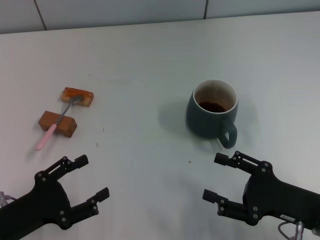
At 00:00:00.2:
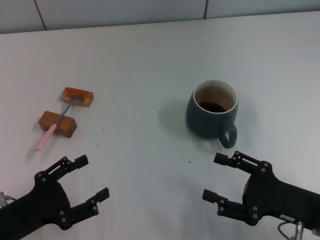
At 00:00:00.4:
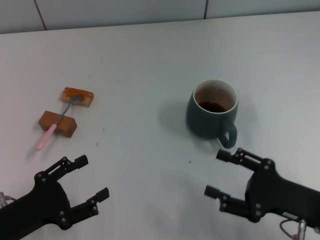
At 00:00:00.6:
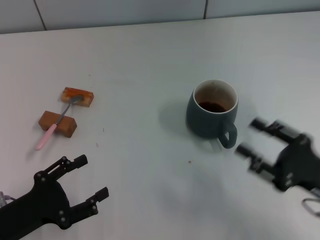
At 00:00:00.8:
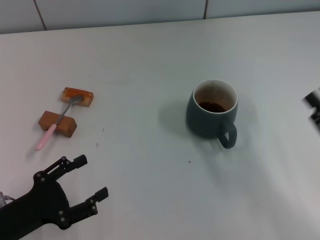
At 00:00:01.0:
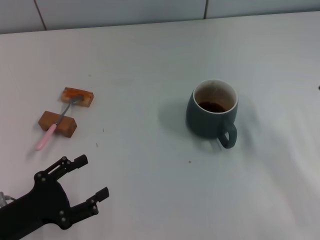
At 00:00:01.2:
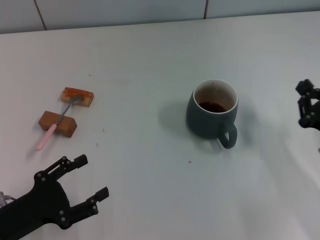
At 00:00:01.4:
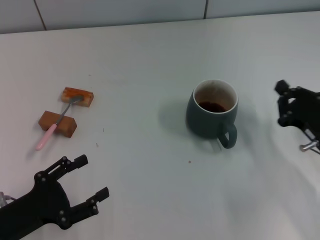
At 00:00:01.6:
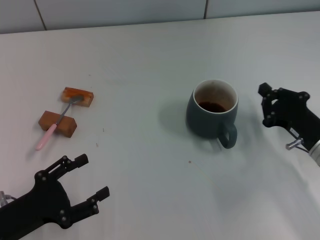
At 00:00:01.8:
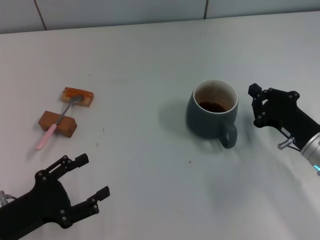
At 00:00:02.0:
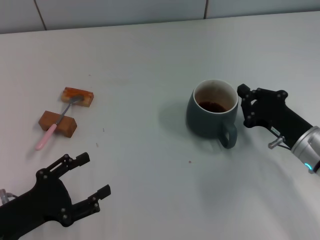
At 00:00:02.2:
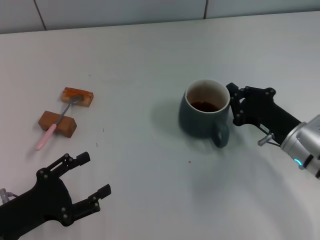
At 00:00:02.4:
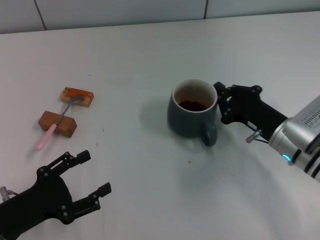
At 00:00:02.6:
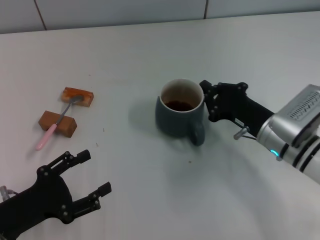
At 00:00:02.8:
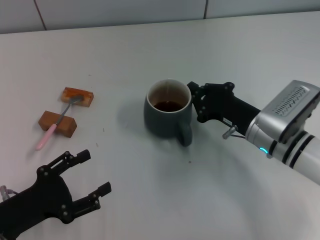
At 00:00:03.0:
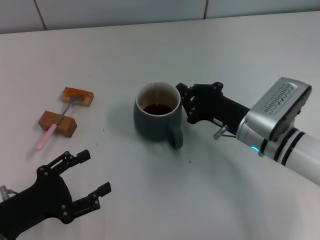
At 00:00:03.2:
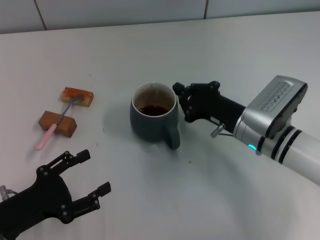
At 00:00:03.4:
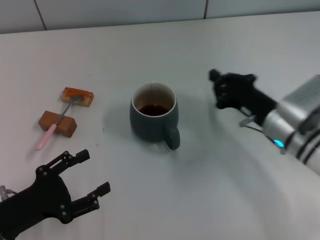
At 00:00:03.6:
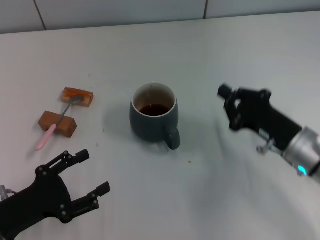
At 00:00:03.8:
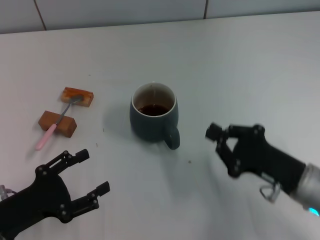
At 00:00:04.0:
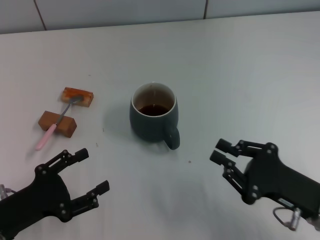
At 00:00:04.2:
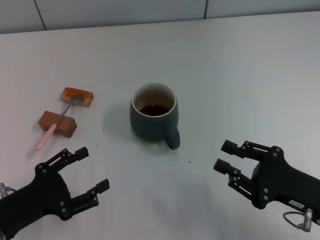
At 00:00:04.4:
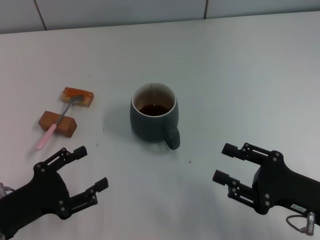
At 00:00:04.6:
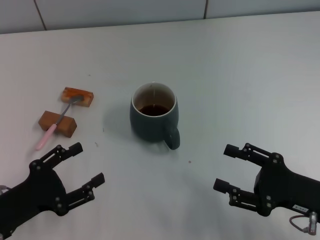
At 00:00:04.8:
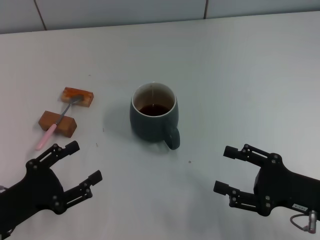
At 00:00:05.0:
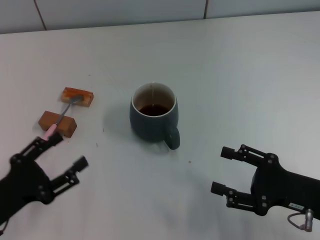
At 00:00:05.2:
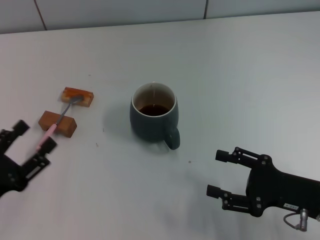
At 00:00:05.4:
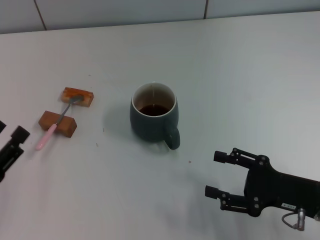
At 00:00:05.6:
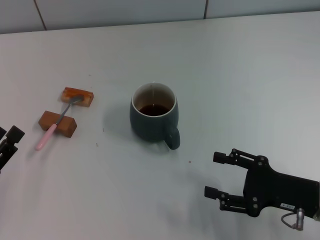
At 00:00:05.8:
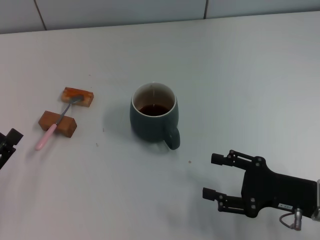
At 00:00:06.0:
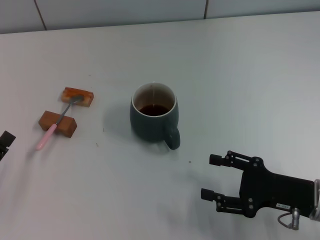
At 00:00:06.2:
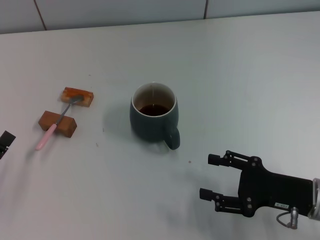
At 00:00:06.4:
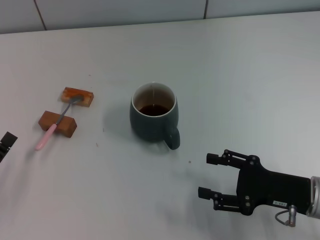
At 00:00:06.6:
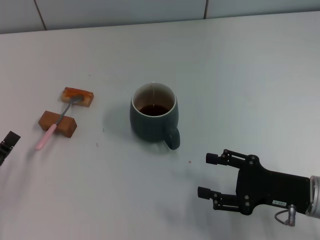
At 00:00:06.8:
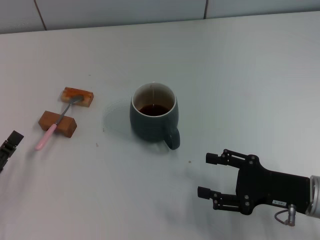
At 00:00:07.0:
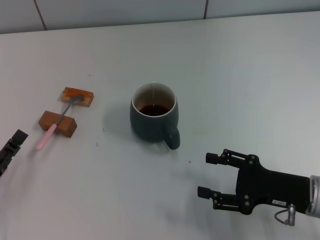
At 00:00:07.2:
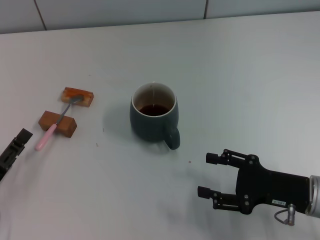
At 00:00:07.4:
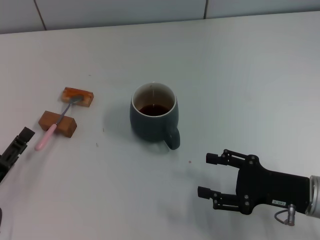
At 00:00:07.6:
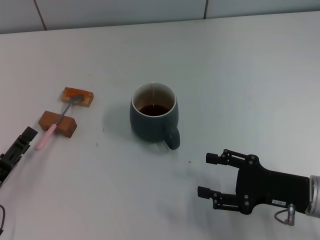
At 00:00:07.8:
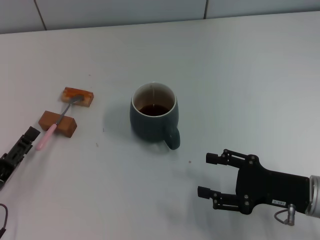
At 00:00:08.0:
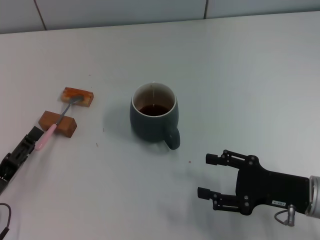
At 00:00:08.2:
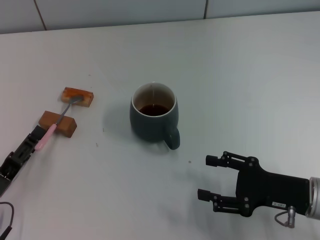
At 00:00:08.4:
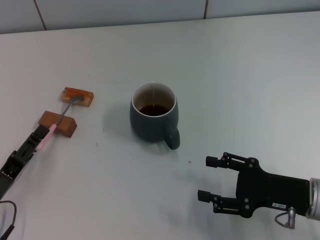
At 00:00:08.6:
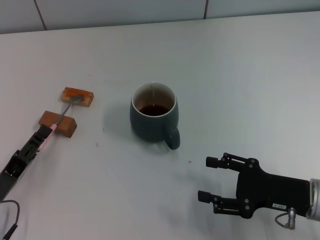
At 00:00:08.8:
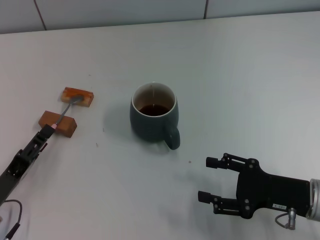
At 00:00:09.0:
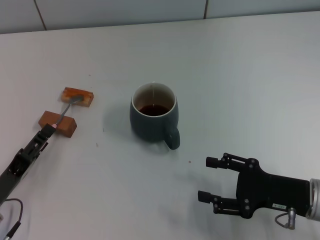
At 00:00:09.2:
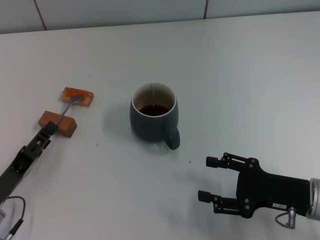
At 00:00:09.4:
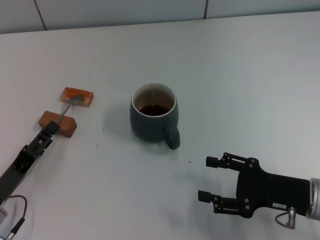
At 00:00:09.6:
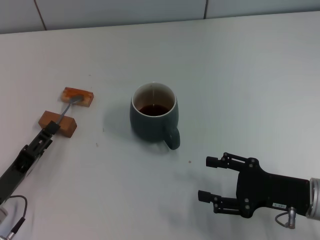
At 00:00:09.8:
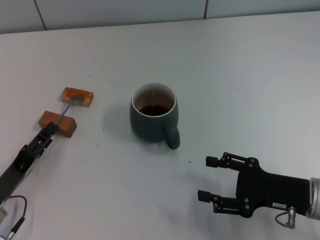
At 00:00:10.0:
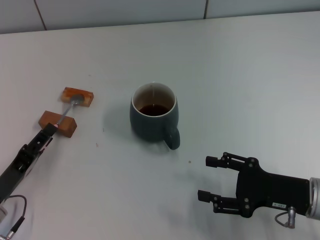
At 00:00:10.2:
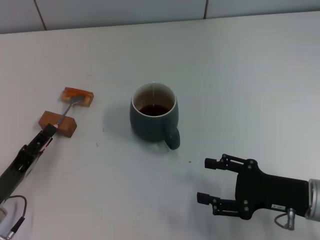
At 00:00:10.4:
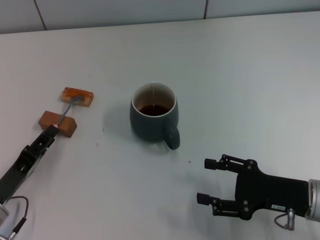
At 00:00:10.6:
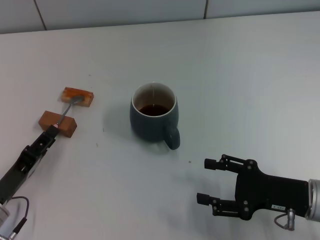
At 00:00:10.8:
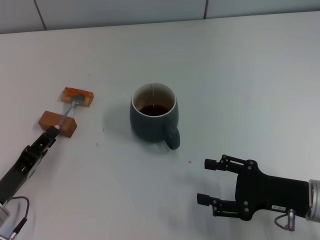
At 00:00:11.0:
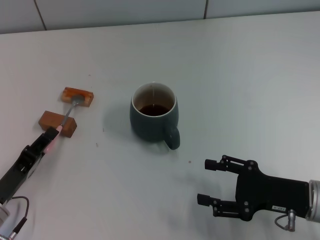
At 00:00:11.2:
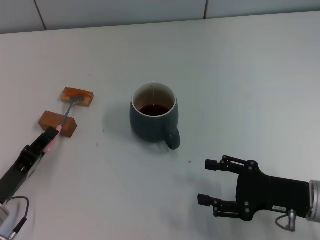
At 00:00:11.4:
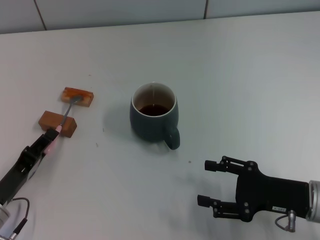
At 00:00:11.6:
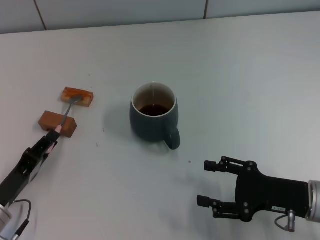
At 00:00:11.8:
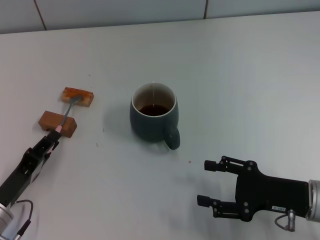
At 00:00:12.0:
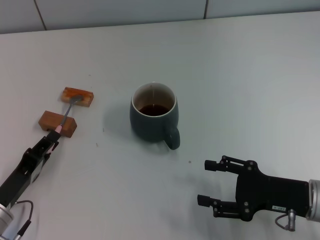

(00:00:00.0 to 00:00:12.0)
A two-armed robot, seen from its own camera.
Task of the whole recording: Move the grey cup to the center, lift the pink spoon, stir it three times in the cup, and put the spoon into the cup.
Step, 00:00:00.0 - 00:00:03.2: Move the cup with coffee to the center of view with the right gripper.
00:00:00.0 - 00:00:01.6: The right gripper moves forward, roughly 10 cm, and closes up.
00:00:01.6 - 00:00:03.0: The right gripper is displaced to the left by some 10 cm.
00:00:03.0 - 00:00:04.4: The right gripper moves backward and to the right, some 15 cm, and opens its fingers.
00:00:04.4 - 00:00:06.0: The right gripper opens up. The left gripper ends up approximately 5 cm from where it was.
00:00:06.0 - 00:00:09.0: The grippers make only small movements.
00:00:09.0 - 00:00:10.4: The left gripper closes its fingers.
00:00:10.4 - 00:00:12.0: The grippers move only a little.

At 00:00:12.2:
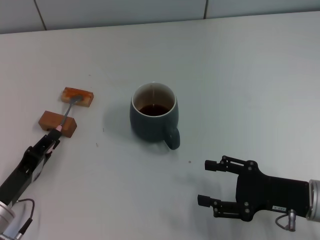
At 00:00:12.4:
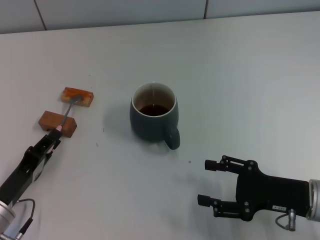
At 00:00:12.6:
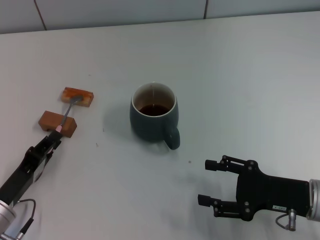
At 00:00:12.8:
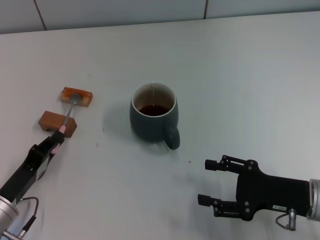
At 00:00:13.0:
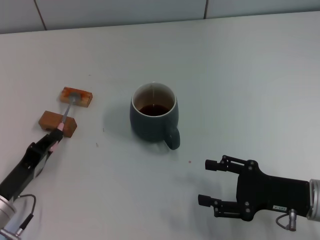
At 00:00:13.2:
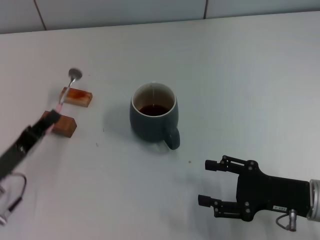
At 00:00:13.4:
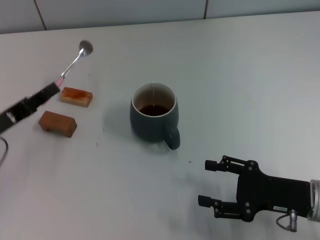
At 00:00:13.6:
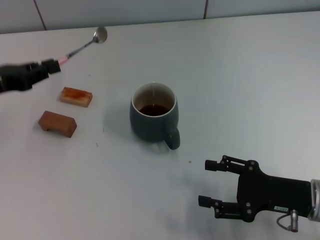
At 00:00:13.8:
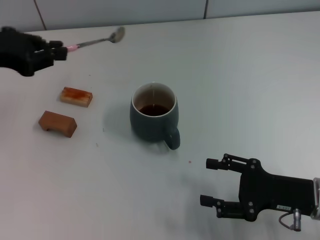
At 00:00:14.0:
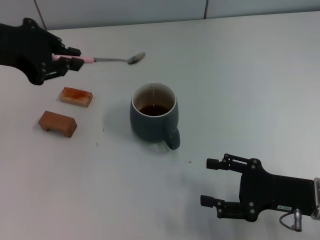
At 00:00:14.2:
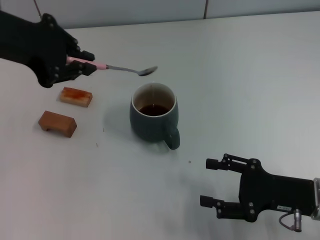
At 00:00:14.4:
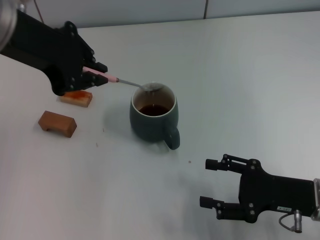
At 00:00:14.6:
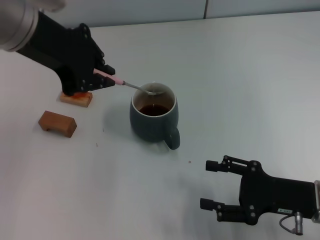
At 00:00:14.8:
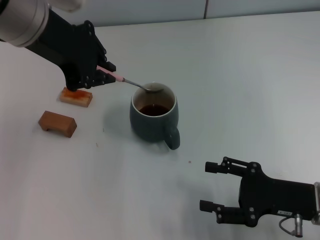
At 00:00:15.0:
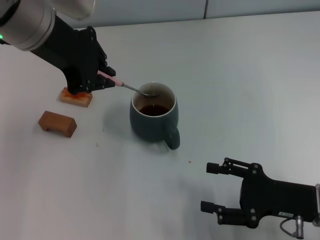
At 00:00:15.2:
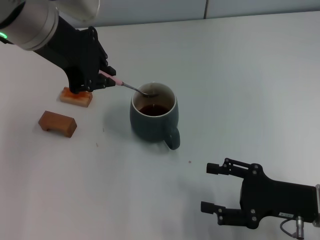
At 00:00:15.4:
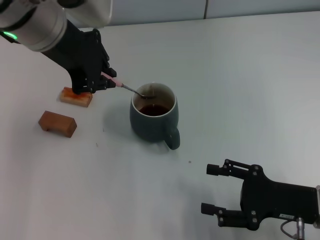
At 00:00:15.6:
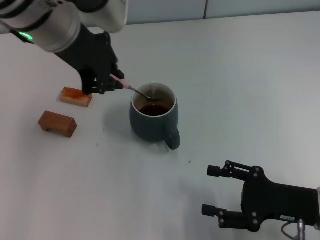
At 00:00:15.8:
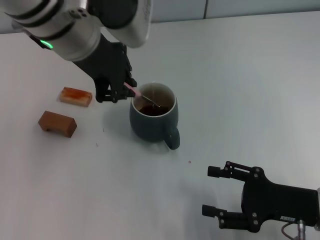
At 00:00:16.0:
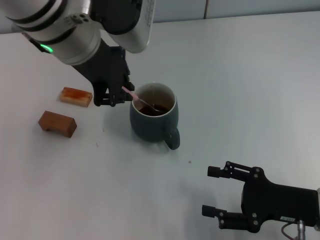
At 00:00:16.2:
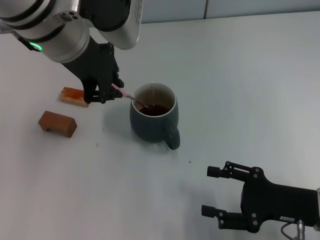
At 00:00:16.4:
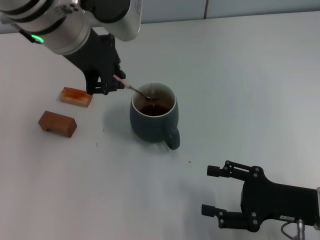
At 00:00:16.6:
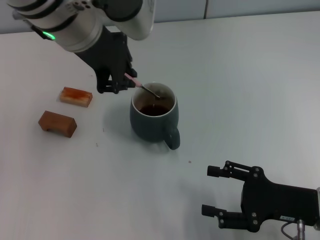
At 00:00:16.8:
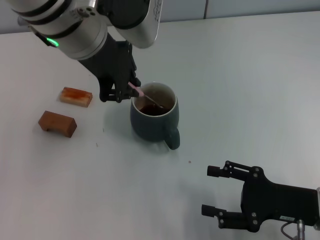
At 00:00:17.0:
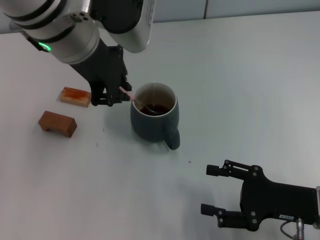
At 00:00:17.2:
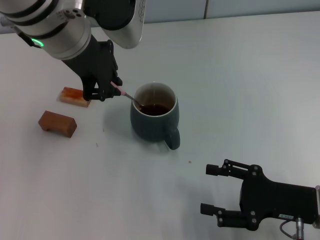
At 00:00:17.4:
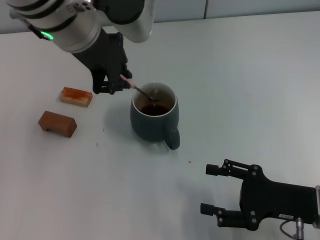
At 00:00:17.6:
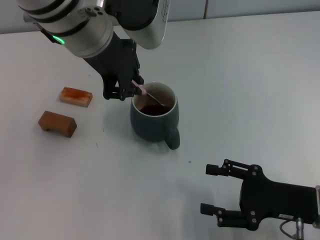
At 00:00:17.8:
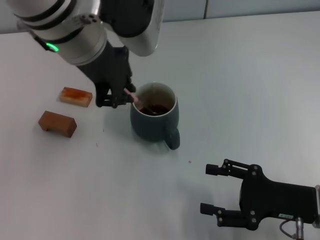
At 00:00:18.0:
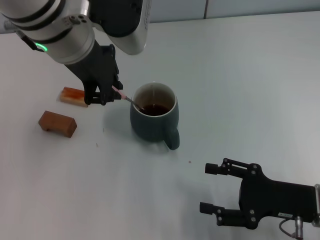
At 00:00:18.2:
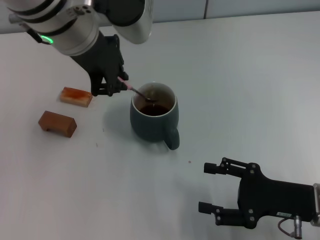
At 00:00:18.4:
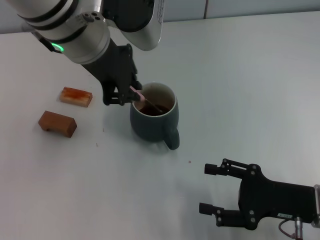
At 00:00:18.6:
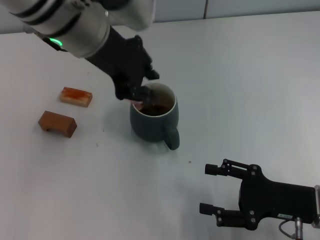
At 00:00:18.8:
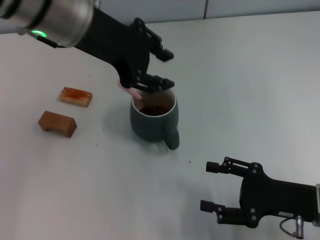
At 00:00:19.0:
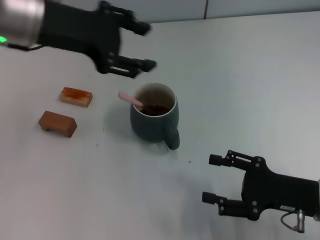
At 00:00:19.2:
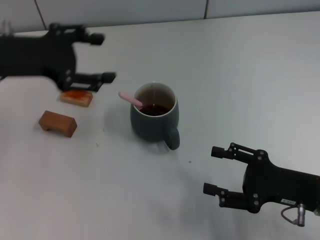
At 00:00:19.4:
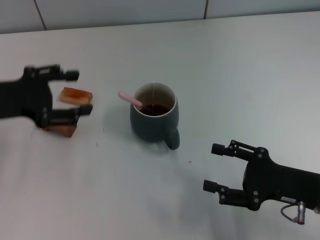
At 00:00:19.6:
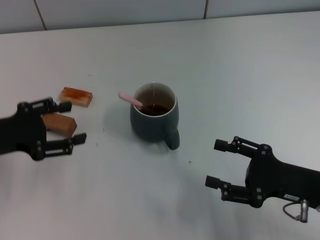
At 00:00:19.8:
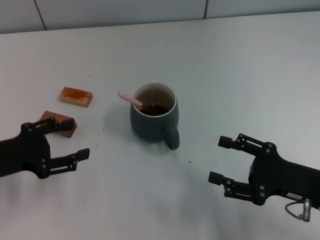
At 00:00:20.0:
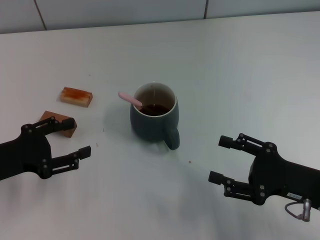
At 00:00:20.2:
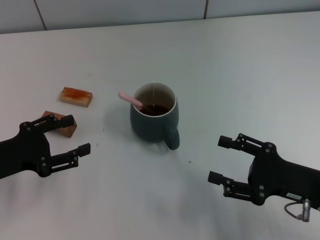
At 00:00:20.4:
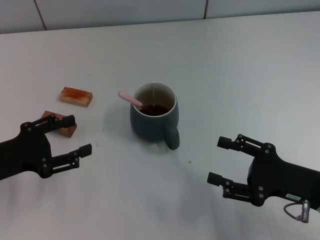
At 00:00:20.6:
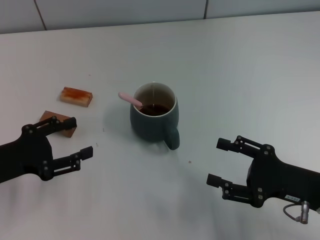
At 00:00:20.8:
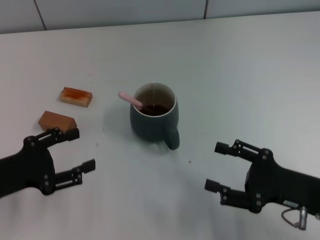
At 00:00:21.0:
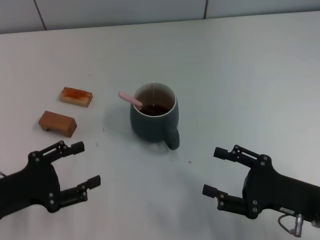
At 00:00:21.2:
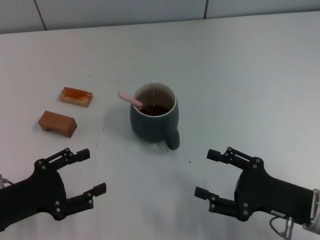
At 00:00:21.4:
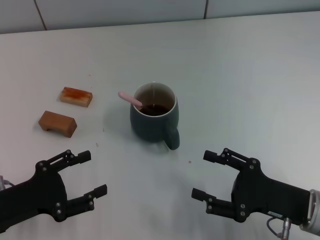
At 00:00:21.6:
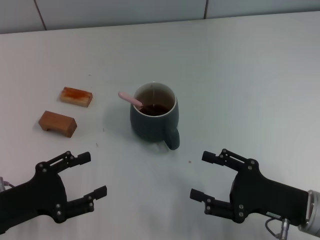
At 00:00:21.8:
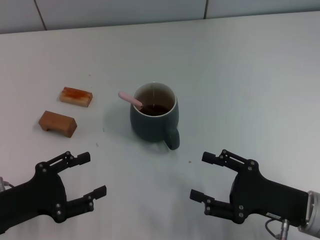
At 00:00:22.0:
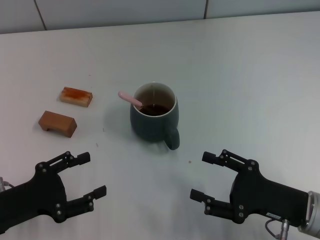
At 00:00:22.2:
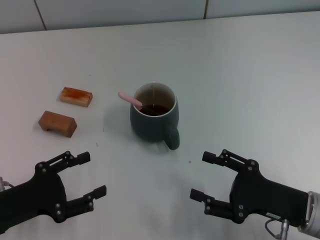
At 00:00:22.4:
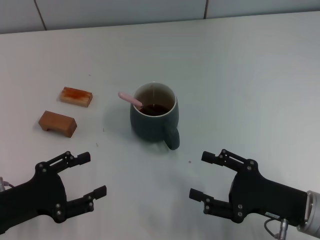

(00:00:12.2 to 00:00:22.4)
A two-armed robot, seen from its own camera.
Task of the whole recording: Move the grey cup to the center, lift the pink spoon, stir it three times in the cup, and put the spoon into the cup.
Step, 00:00:13.2 - 00:00:18.8: Stir the coffee in the cup with the left gripper.
00:00:12.2 - 00:00:13.6: The left gripper goes approximately 20 cm upward and forward.
00:00:13.6 - 00:00:15.2: The left gripper is displaced to the right and upward by roughly 20 cm.
00:00:15.2 - 00:00:18.0: The grippers make only small movements.
00:00:18.0 - 00:00:19.4: The left gripper travels to the left and downward by approximately 20 cm, and opens its fingers.
00:00:19.4 - 00:00:21.0: The left gripper shifts roughly 15 cm backward and downward.
00:00:21.0 - 00:00:22.4: There are only small adjustments of the grippers.
